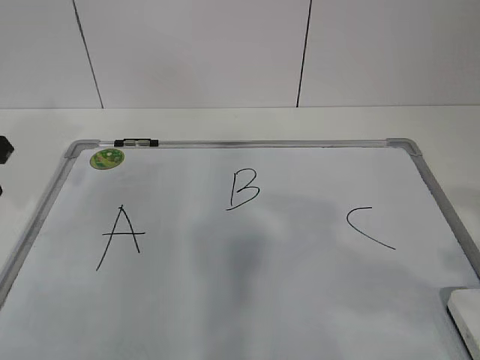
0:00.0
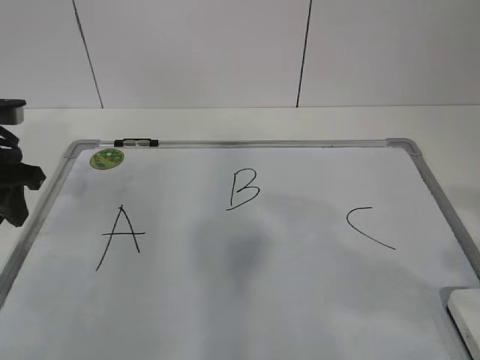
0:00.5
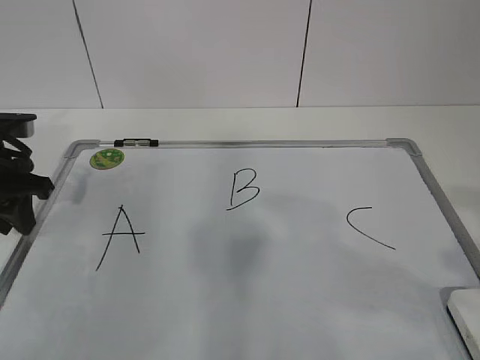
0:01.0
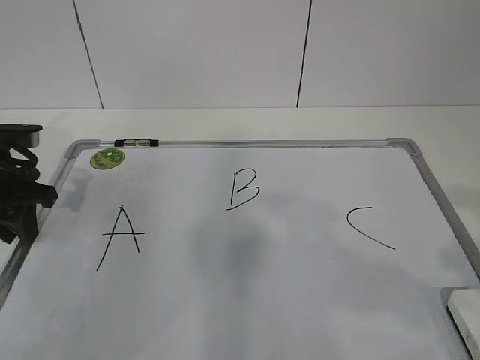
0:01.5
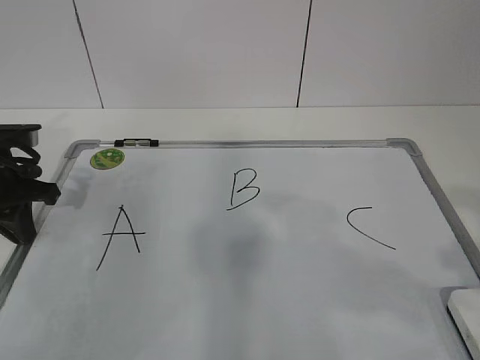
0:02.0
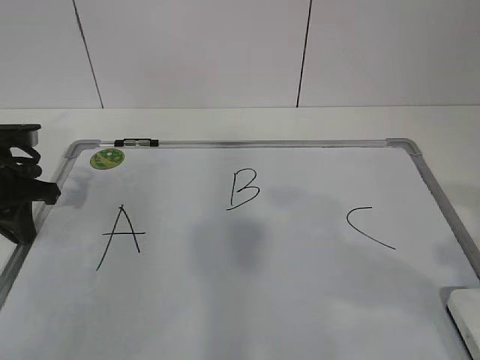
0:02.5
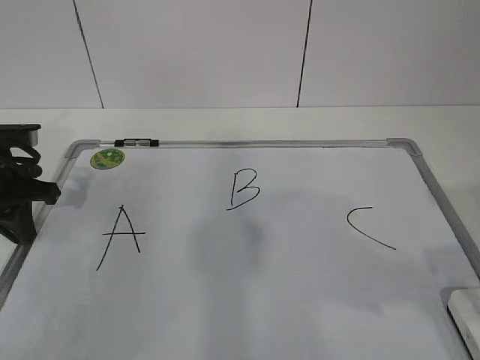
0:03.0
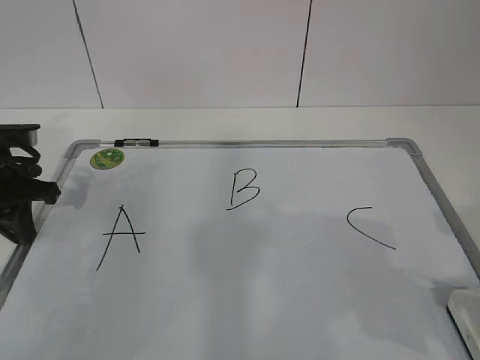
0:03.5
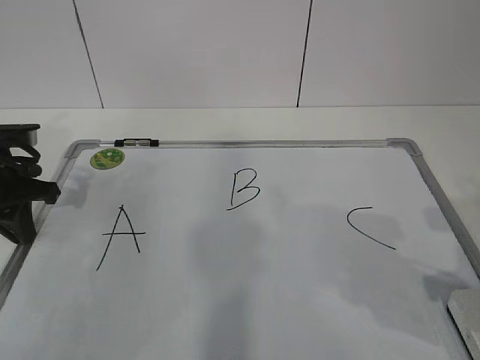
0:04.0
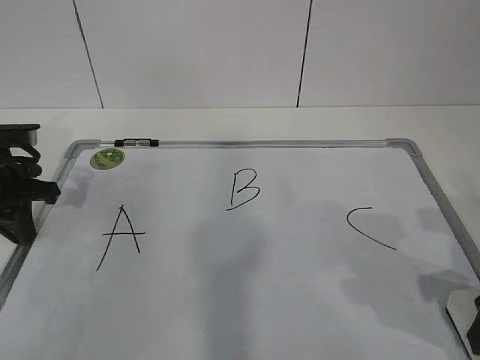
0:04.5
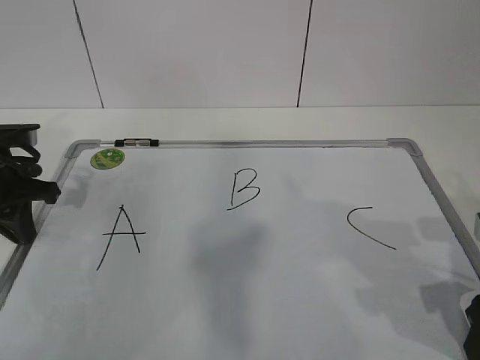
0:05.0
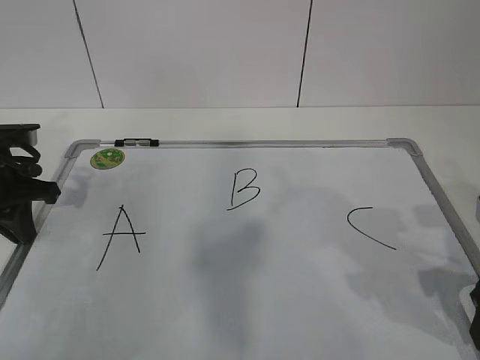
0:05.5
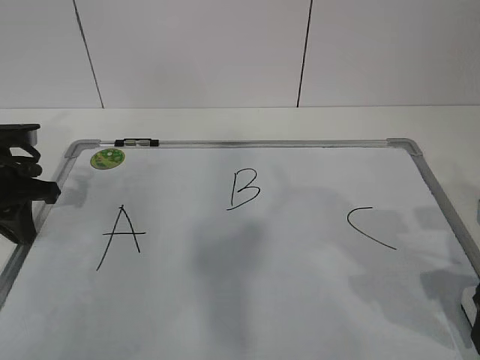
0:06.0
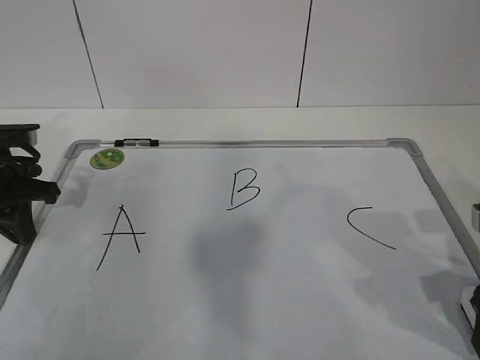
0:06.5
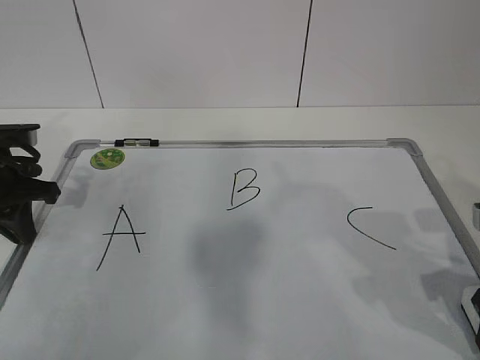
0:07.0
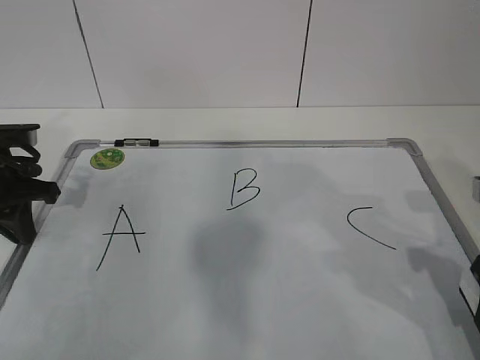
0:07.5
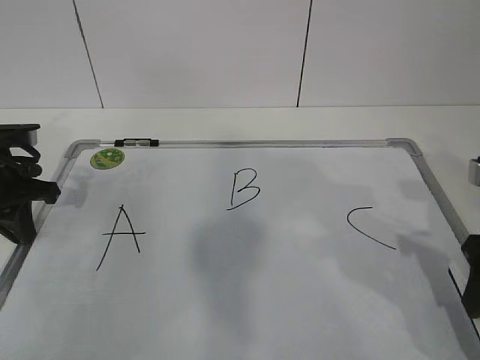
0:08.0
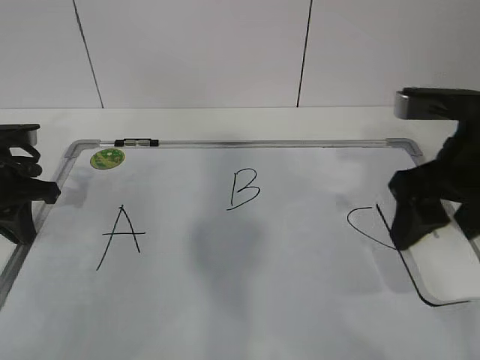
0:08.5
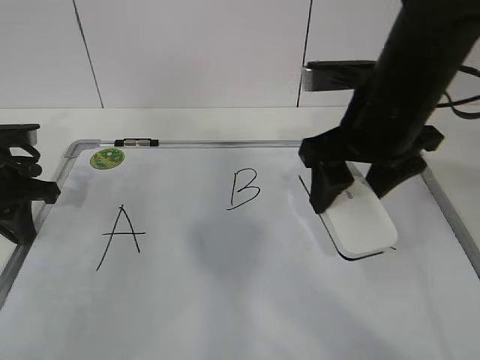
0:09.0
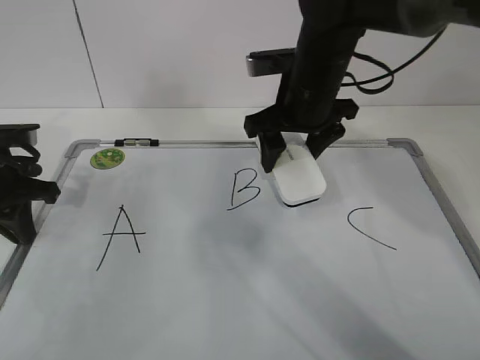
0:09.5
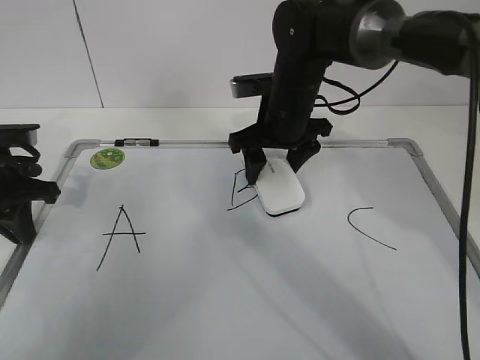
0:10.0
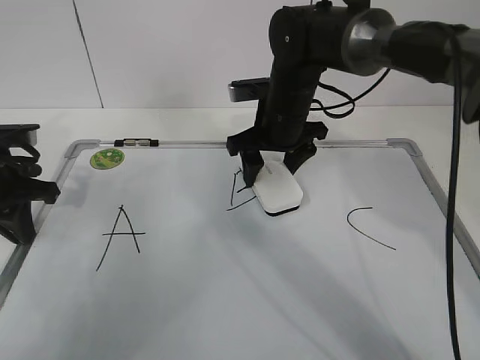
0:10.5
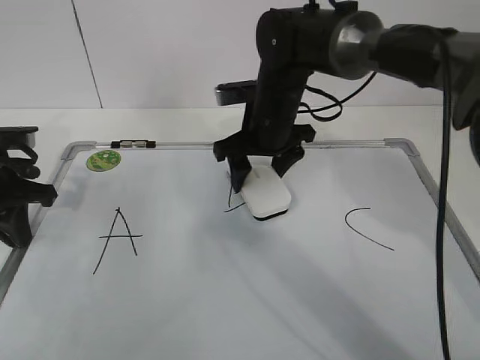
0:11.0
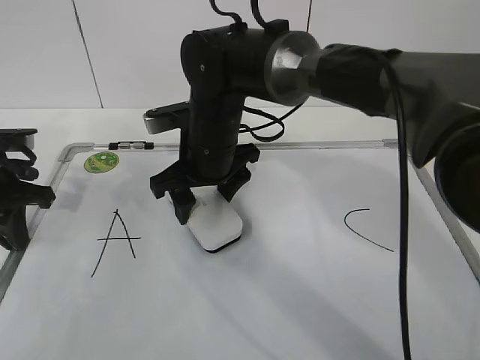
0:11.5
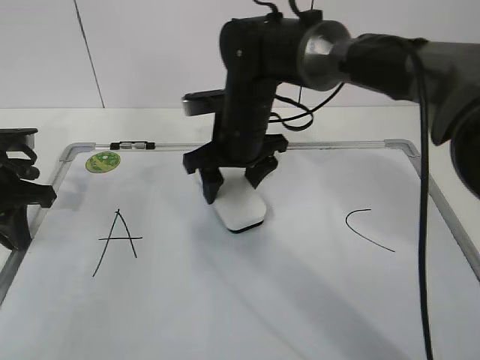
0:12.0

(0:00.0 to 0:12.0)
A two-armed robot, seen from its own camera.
Task of the whole recording: pick up the eraser on the blackboard and erase the letter "B".
Step, 0:01.0 - 0:05.0: Grab the eraser with your right hand.
Step, 0:05.5 - 0:11.0: Erase the letter B with your right hand.
0:00.0 - 0:02.0: The left gripper is displaced downward by some 10 cm, and closes up.
0:02.0 - 0:04.0: The right gripper shifts about 15 cm downward and forward.
0:04.0 - 0:06.0: The right gripper opens up.
0:06.0 - 0:08.0: The right gripper closes.
0:08.0 - 0:10.0: The right gripper travels forward and to the left by approximately 30 cm.
0:10.0 - 0:12.0: The right gripper shifts some 5 cm to the left.

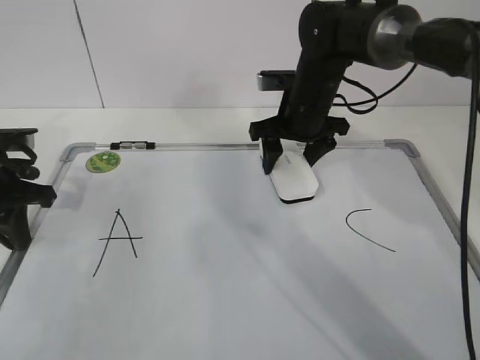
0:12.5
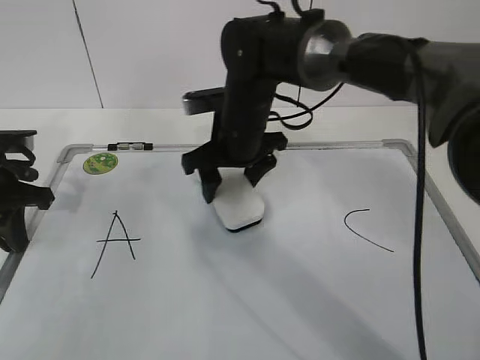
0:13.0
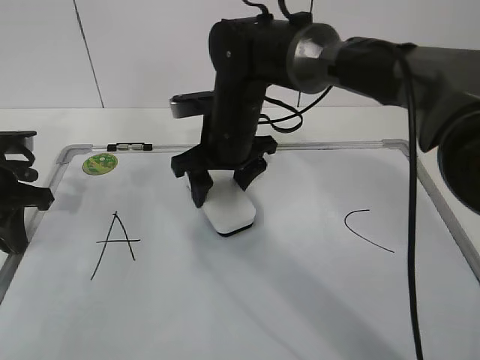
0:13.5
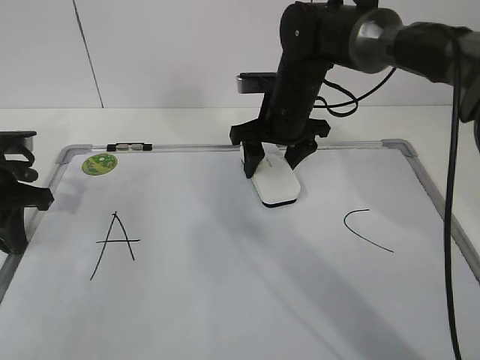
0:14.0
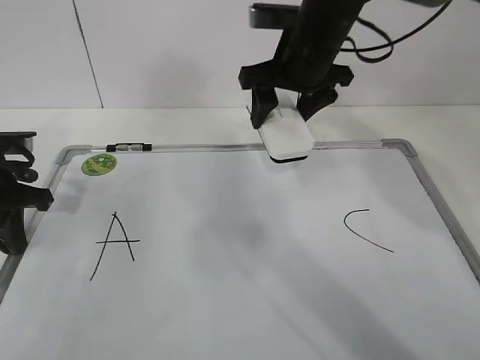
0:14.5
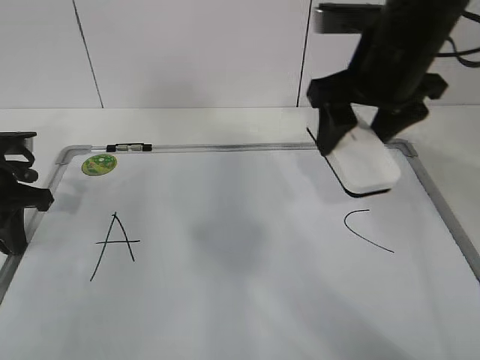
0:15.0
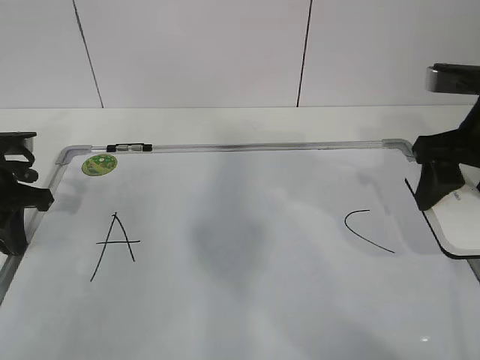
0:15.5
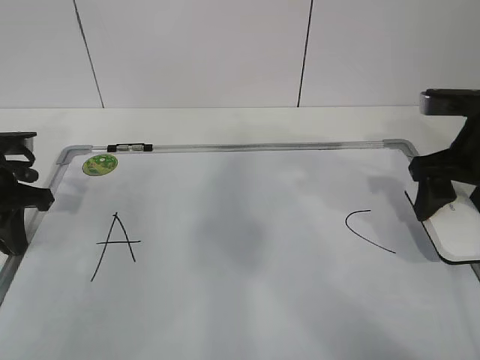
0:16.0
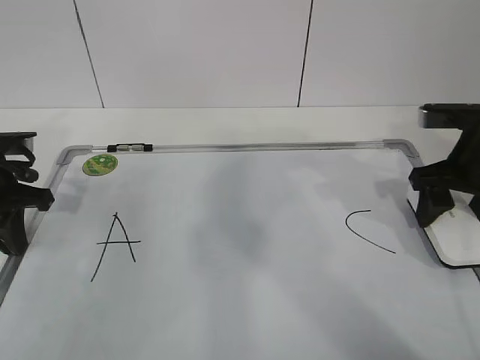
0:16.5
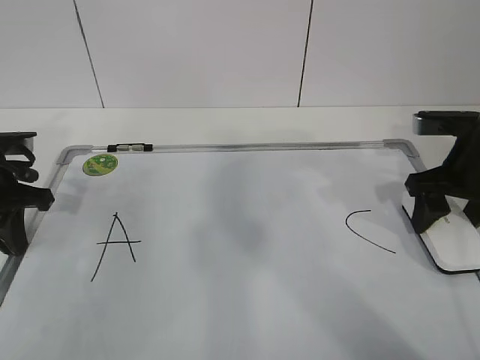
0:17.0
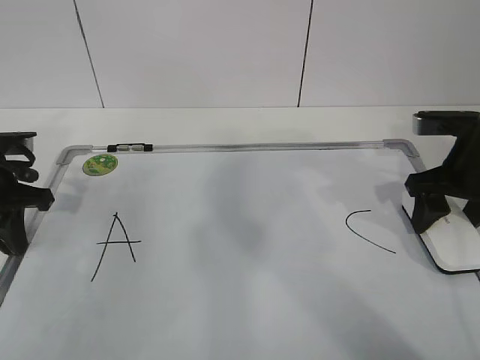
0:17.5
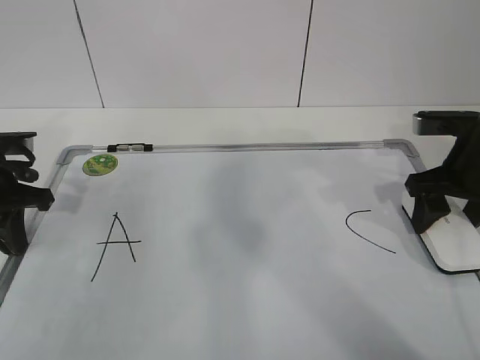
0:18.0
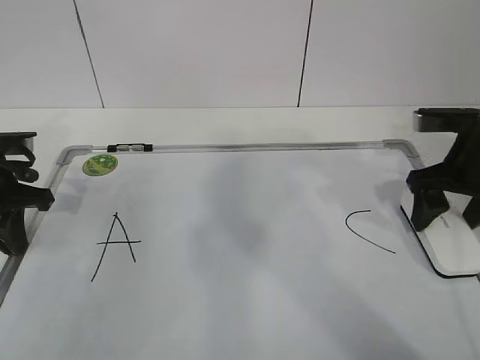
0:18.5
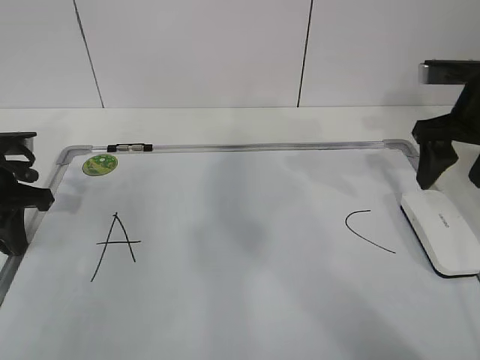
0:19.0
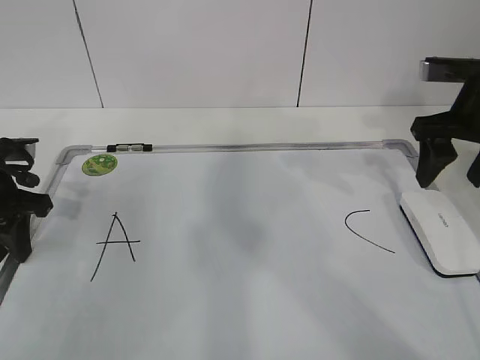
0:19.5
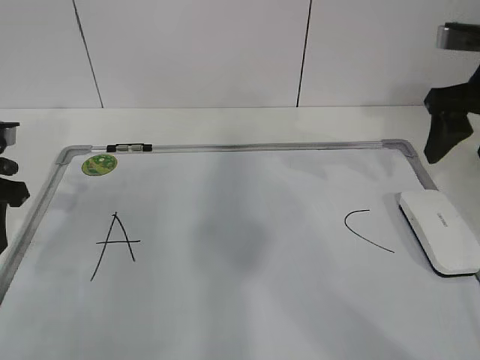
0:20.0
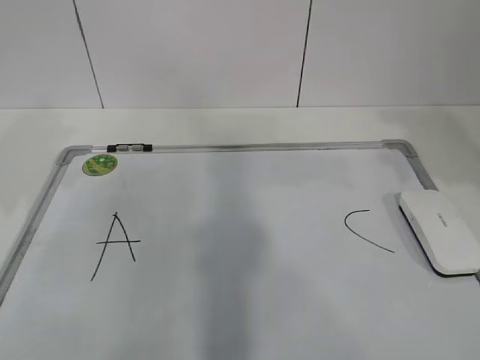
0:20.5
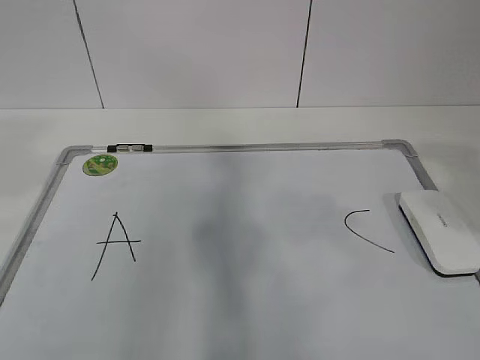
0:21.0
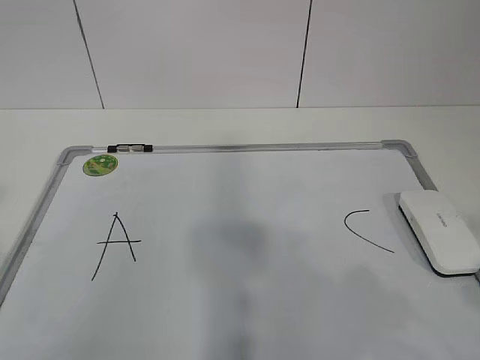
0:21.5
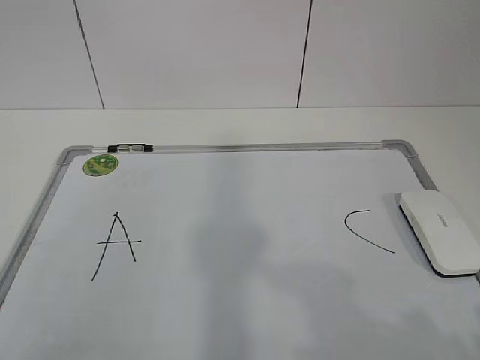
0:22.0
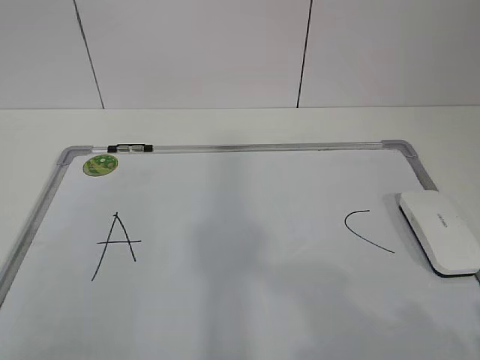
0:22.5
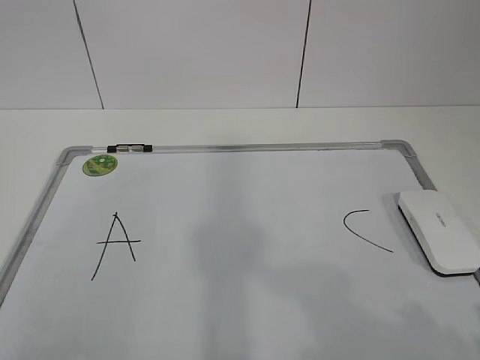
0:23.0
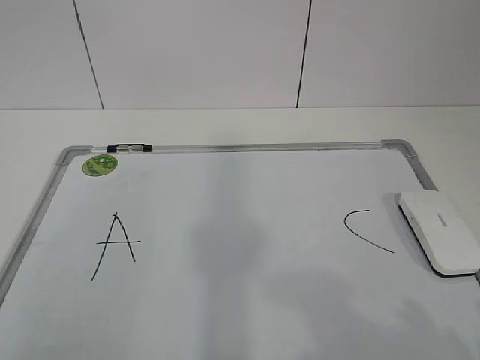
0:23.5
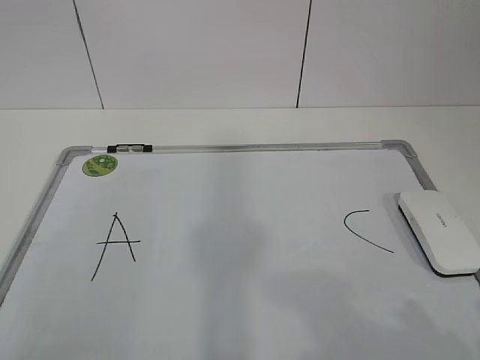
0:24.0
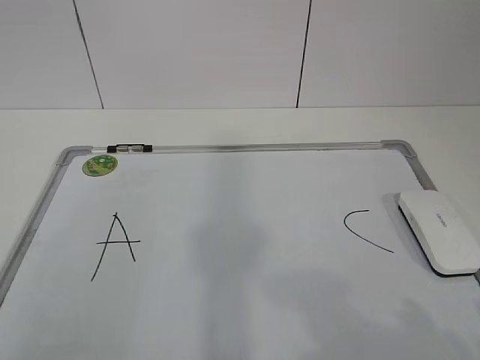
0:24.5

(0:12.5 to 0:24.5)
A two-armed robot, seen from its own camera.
Task of the whole recording: pick up the eraser on the blackboard and erase the letter "B".
0:12.5 - 0:14.5: The right gripper heads upward, covering roughly 10 cm, and reaches some 10 cm to the left, then returns.
0:14.5 - 0:16.5: The right gripper is displaced to the right and backward by about 20 cm.
0:16.5 - 0:18.5: The right gripper opens its fingers.
0:18.5 - 0:20.5: The grippers both shift upward and backward by roughly 15 cm. The left gripper opens up.
0:20.5 - 0:22.5: The two grippers go some 25 cm backward.
